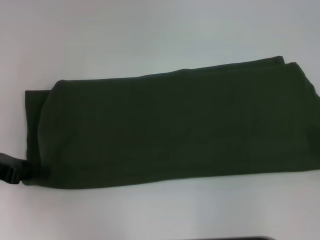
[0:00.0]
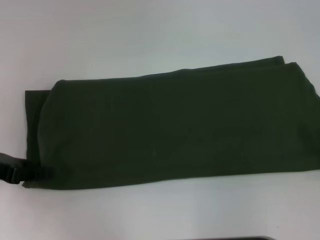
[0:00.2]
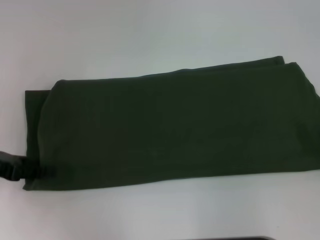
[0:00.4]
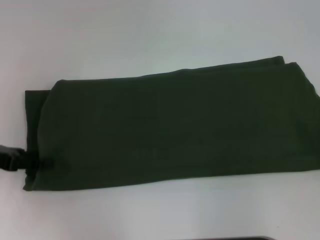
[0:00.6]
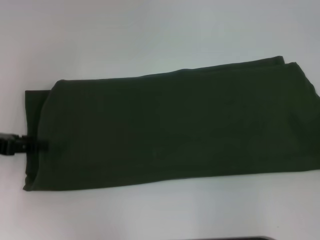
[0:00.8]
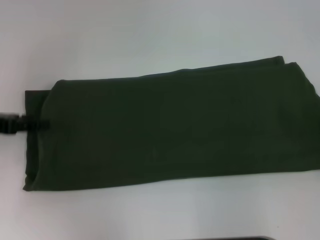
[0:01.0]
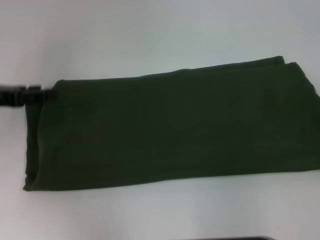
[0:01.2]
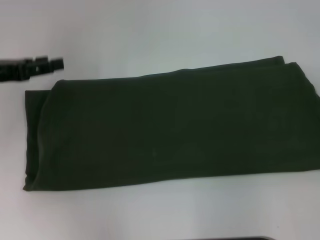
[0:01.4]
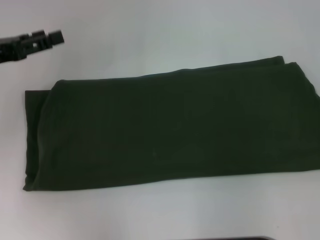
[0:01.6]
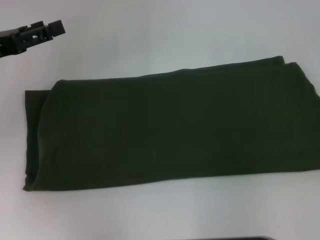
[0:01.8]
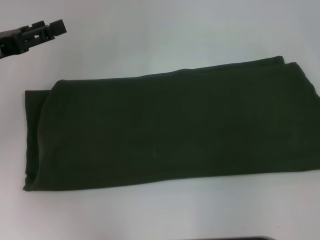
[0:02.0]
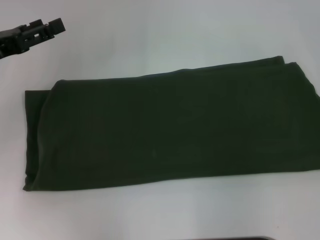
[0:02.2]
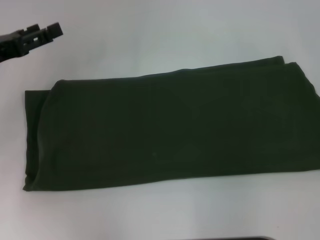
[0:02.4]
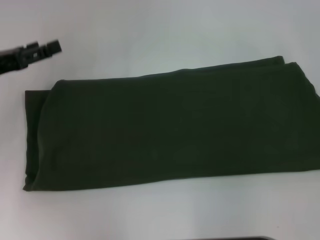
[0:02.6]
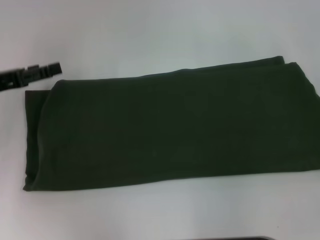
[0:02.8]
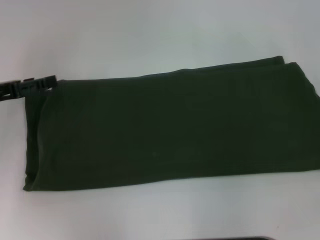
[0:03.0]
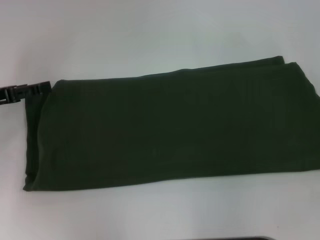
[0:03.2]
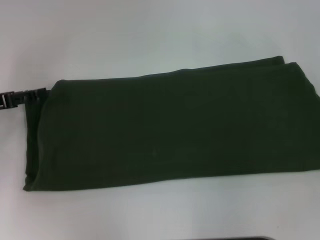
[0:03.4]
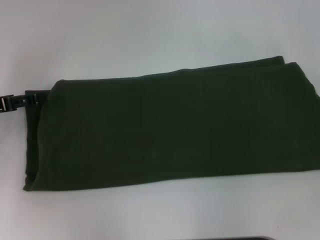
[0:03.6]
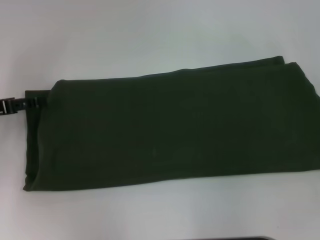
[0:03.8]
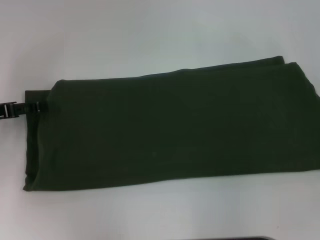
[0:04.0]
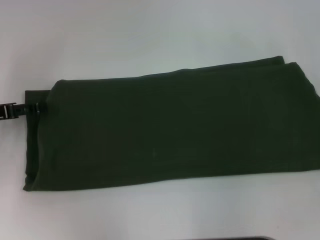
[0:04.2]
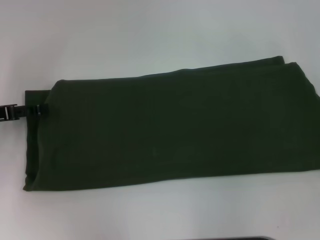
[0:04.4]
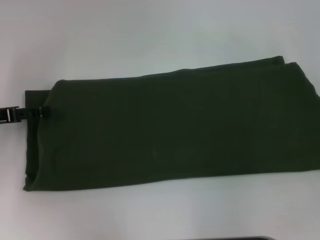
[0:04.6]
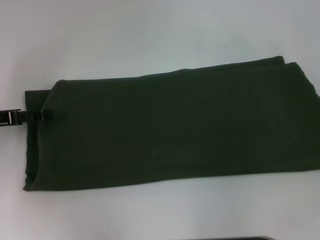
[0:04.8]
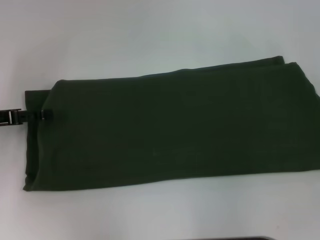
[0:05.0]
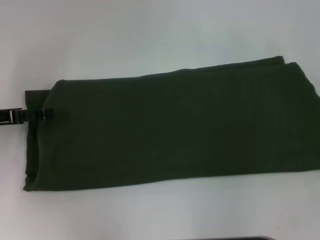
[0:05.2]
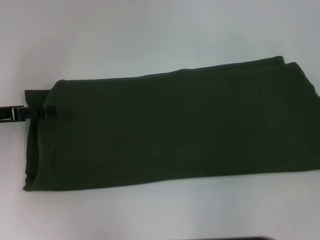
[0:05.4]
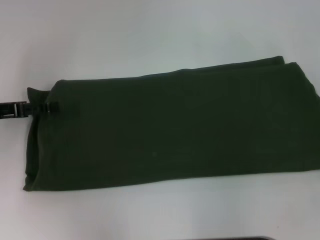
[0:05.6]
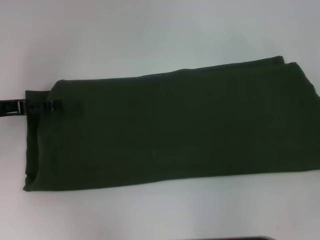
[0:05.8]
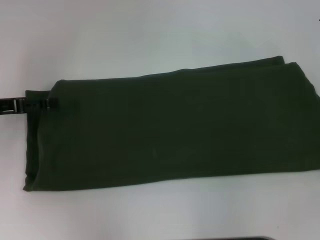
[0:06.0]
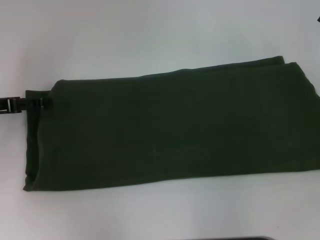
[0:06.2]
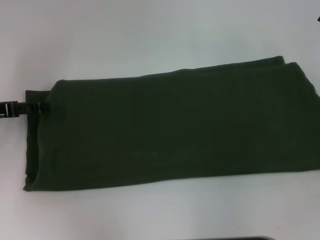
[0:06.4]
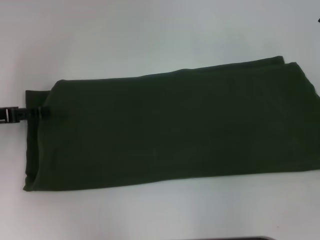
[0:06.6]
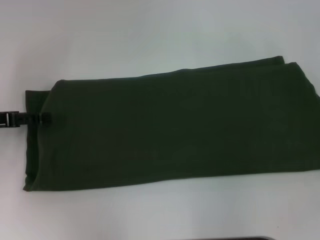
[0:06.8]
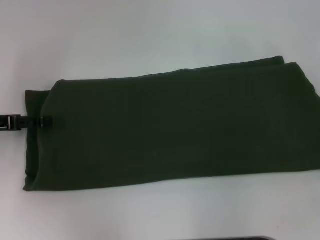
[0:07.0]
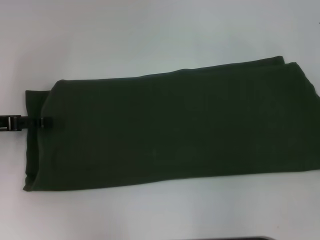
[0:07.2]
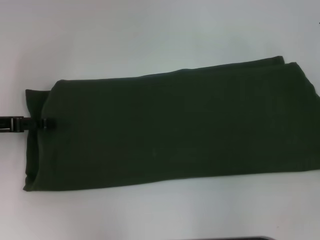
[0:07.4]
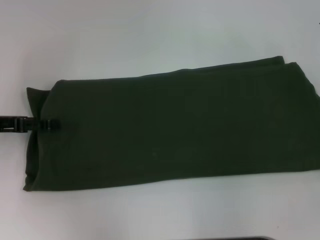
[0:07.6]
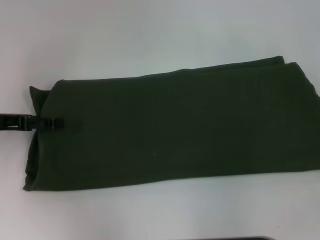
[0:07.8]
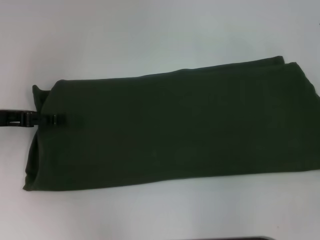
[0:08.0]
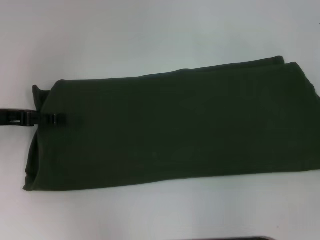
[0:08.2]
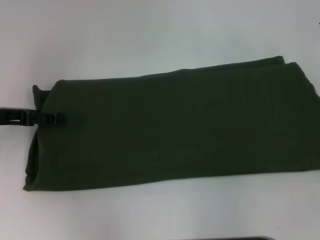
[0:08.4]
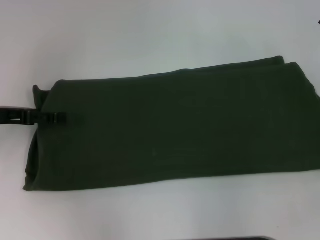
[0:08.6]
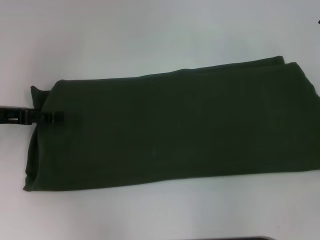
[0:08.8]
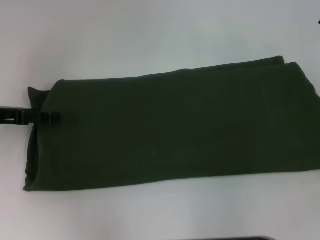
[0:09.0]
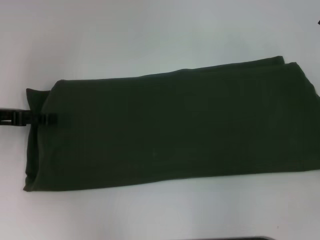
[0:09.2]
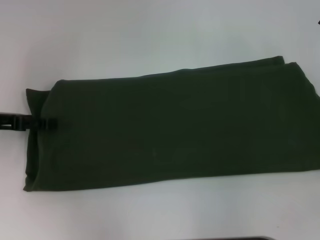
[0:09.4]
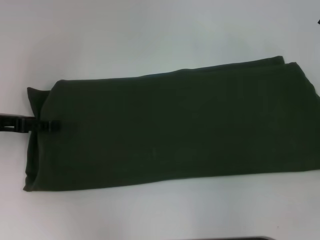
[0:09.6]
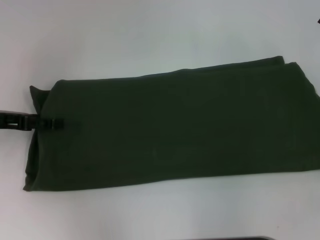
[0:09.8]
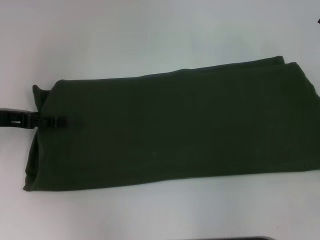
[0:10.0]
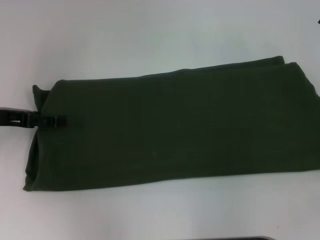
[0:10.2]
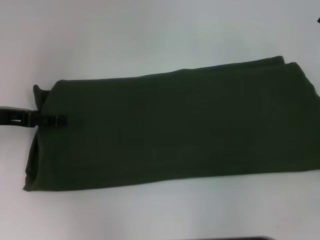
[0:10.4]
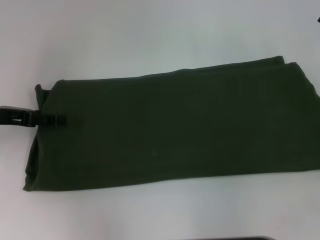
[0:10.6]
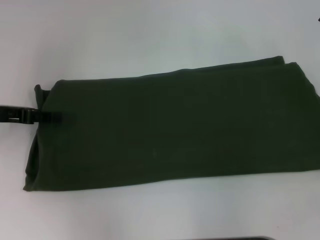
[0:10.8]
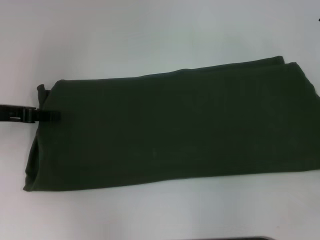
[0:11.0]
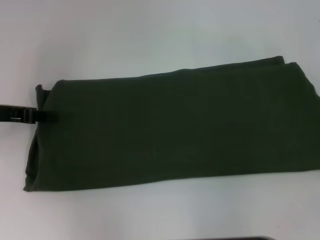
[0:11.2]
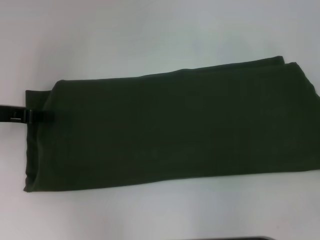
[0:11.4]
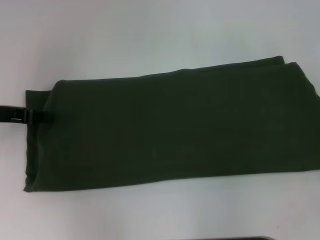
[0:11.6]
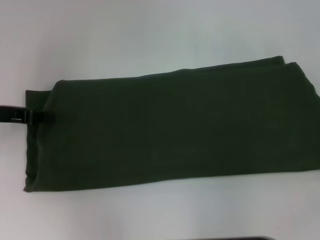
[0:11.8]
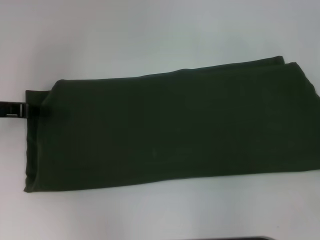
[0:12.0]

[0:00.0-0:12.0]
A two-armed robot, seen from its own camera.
0:00.0 to 0:01.6: The left gripper is displaced forward by about 5 cm, and opens up.
0:03.0 to 0:04.4: The grippers make only small movements.
0:06.0 to 0:09.0: There are only small adjustments of the grippers.
0:09.0 to 0:10.4: Neither gripper changes place.
0:10.4 to 0:12.0: The left gripper closes its fingers.

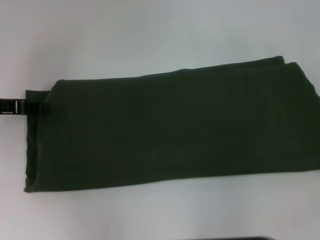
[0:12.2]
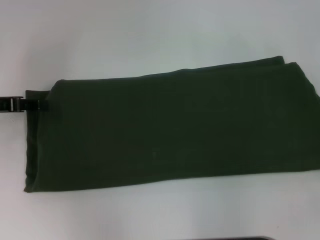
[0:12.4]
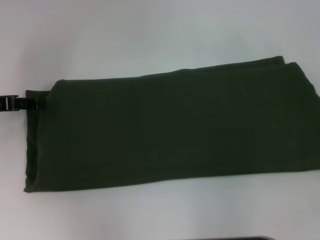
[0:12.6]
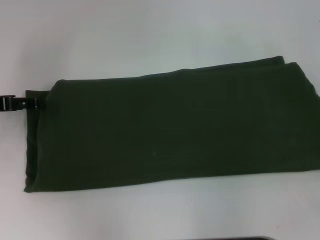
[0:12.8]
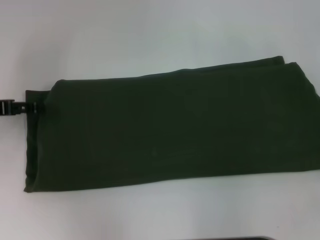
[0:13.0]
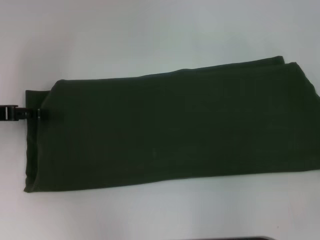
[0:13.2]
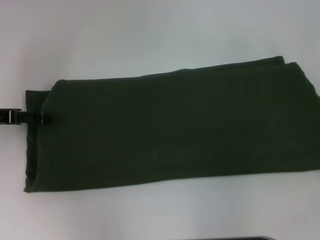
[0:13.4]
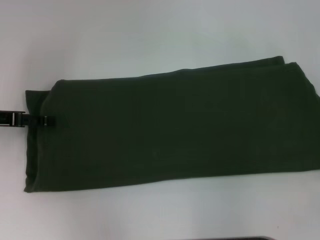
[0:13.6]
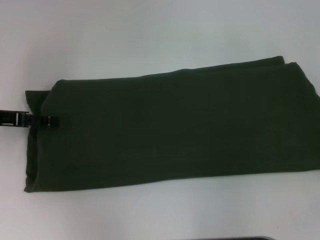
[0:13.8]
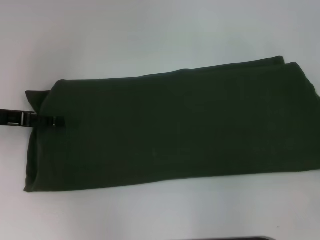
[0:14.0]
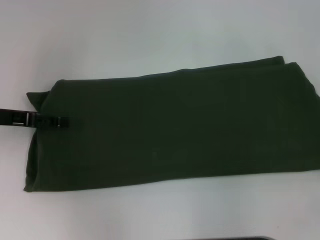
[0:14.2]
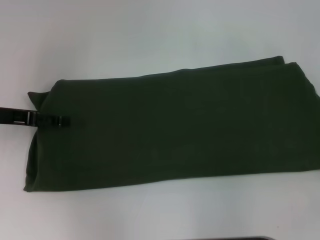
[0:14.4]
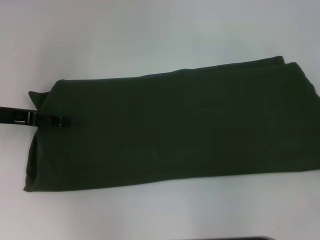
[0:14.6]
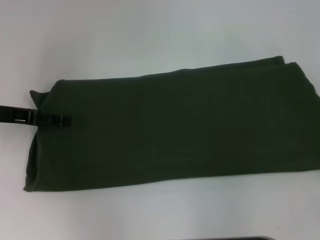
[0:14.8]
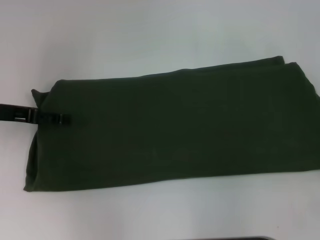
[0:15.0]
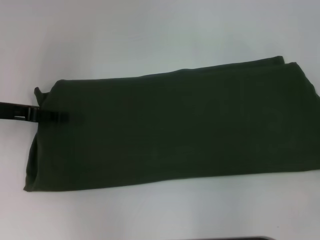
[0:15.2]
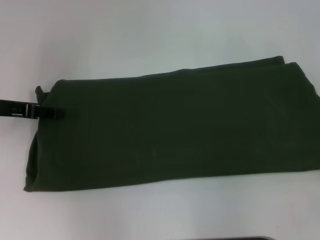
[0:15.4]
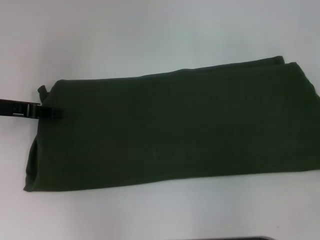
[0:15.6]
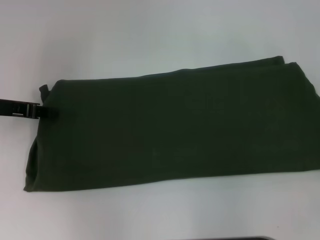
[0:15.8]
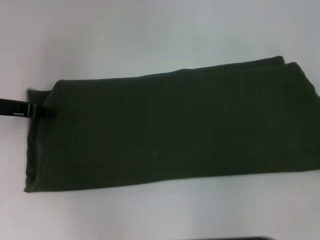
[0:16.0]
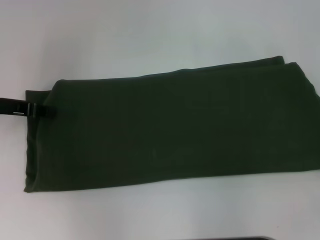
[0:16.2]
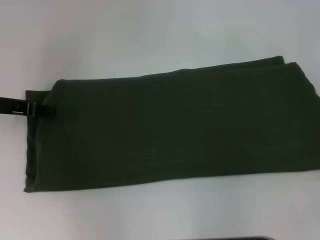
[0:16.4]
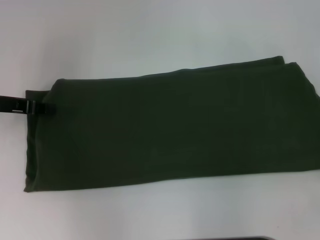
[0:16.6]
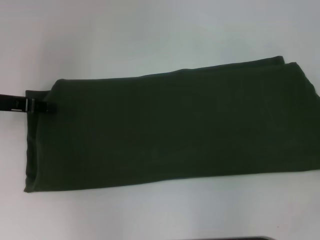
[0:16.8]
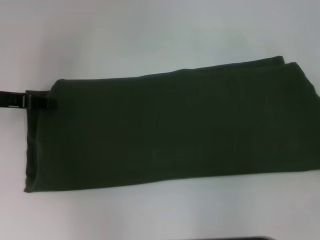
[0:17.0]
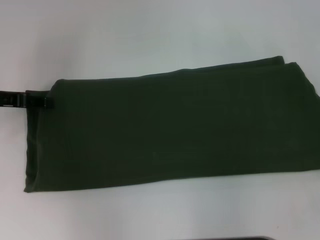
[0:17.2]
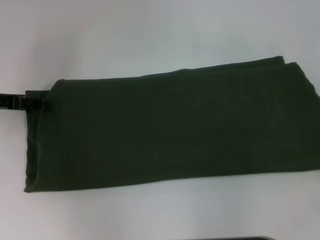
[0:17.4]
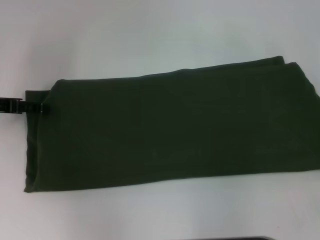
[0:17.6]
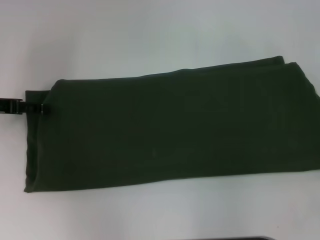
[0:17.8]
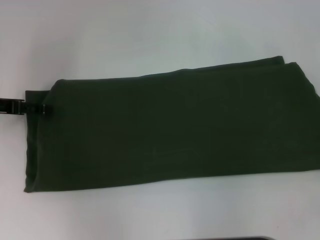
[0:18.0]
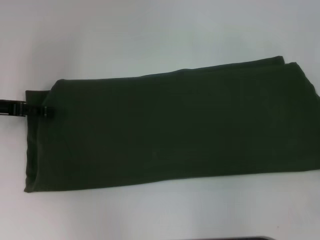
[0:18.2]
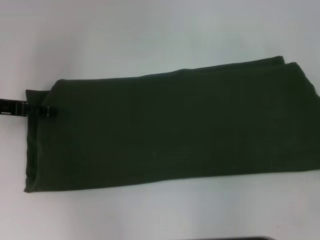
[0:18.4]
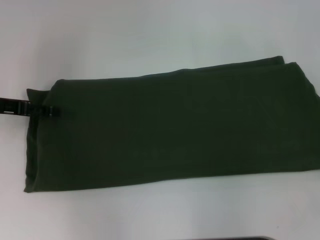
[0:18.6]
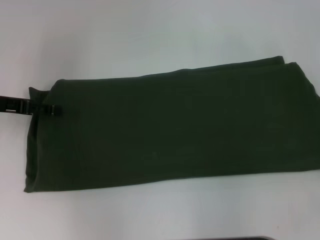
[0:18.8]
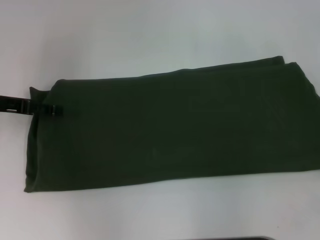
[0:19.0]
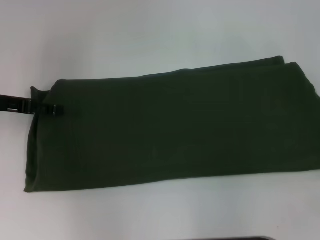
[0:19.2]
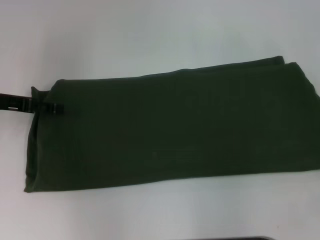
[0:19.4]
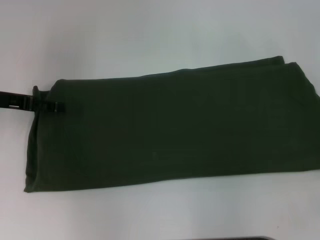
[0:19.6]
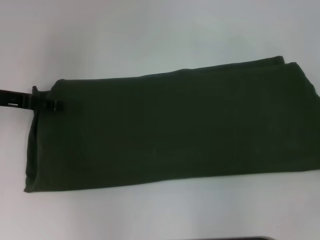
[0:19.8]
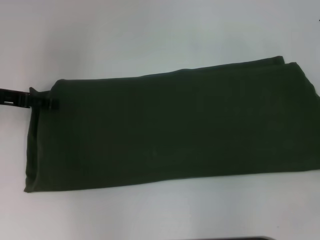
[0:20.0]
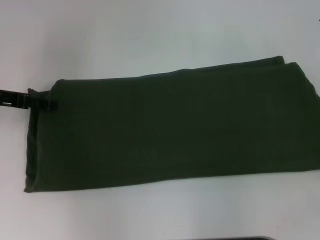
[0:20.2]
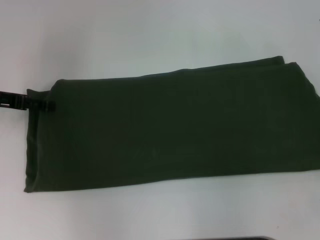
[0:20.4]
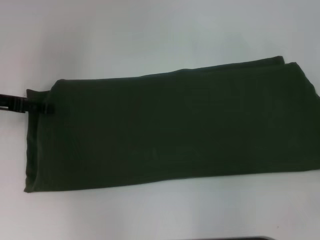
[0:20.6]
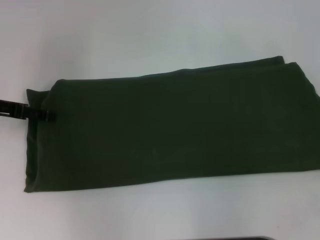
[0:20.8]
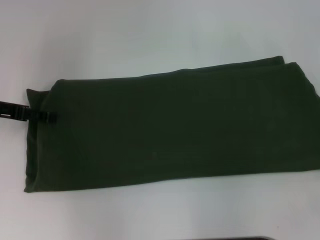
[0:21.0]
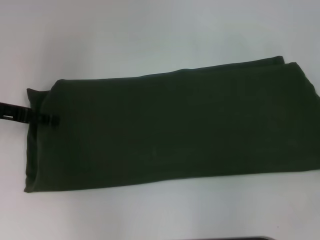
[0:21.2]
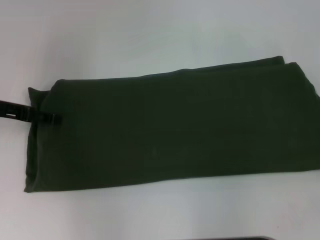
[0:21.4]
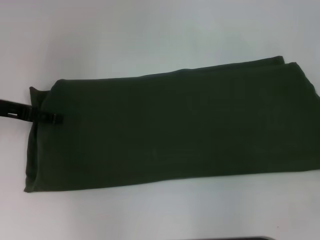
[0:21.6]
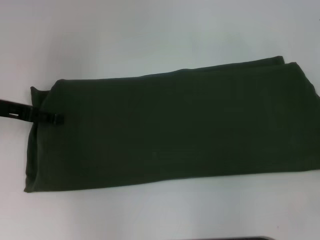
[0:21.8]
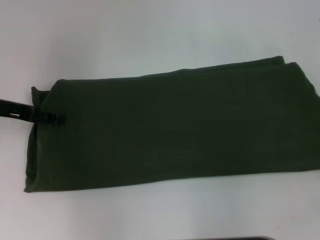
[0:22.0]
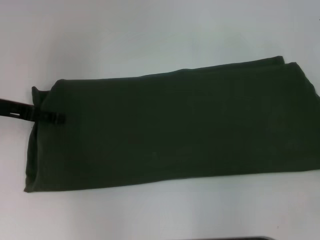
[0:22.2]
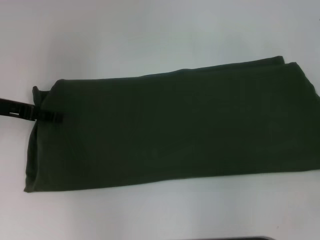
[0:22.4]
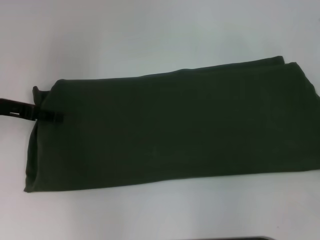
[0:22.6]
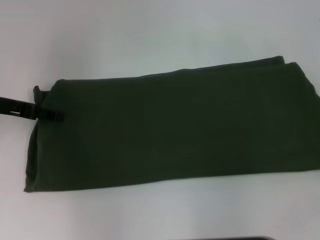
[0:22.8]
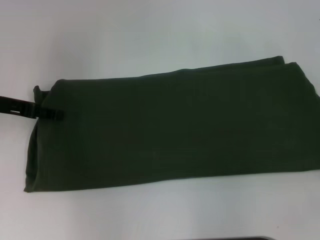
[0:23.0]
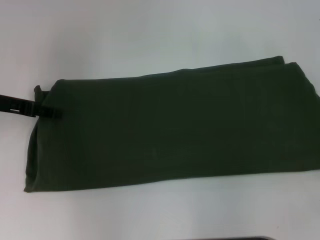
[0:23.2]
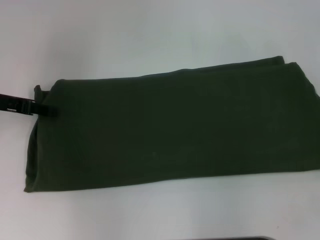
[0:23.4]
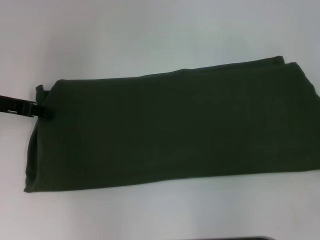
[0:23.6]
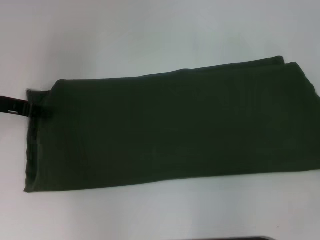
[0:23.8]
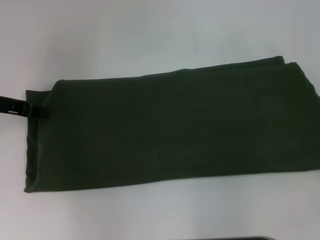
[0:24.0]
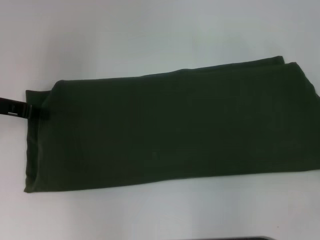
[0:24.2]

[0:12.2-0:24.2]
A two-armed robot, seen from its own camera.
0:12.2 to 0:13.8: The left gripper opens its fingers.
0:13.8 to 0:15.2: The grippers stay close to where they were, moving slightly.
0:15.2 to 0:16.6: The left gripper closes its fingers.
0:18.2 to 0:19.8: The grippers move only a little.
0:19.8 to 0:22.6: Both grippers stay put.
0:22.6 to 0:24.2: The left gripper closes its fingers.
